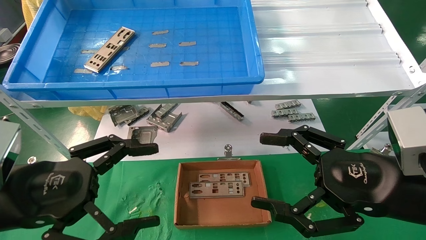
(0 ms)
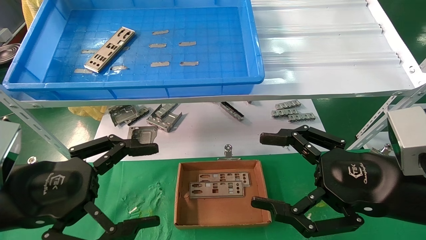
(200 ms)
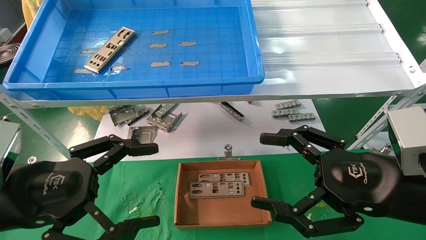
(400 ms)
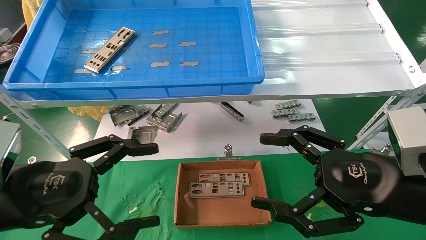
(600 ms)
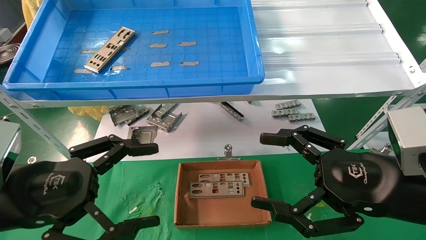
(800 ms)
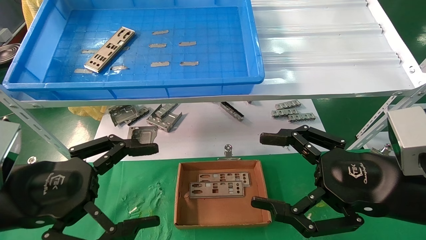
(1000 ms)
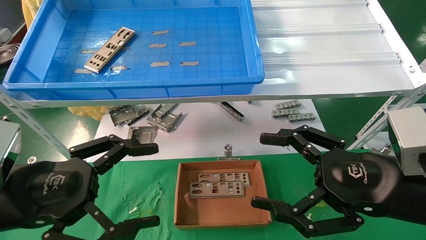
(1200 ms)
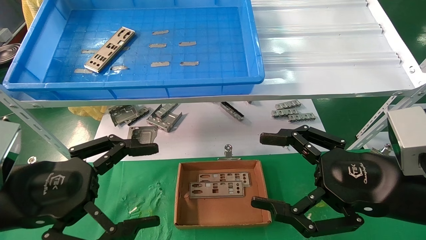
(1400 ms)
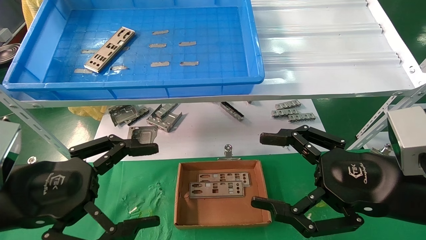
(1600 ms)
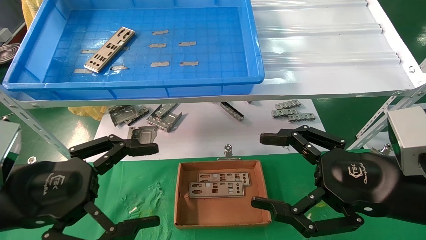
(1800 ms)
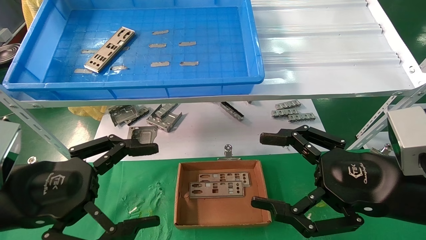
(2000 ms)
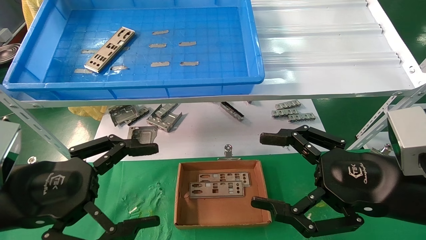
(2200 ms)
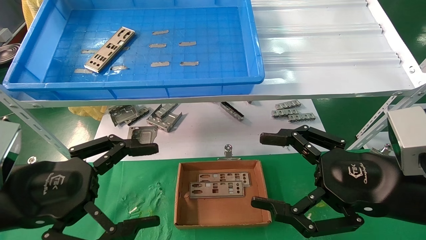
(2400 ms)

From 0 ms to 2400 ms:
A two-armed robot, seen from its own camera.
Task of the whole recording: pick up the parts on the tray and put them in the cardboard box.
From 0 ms to 2400 ms: Both grippers stay about where they are.

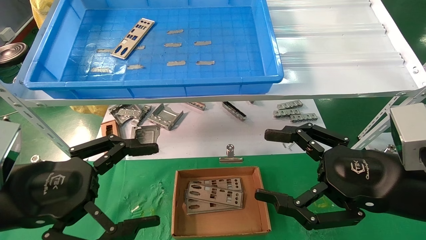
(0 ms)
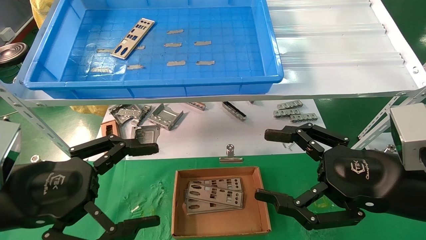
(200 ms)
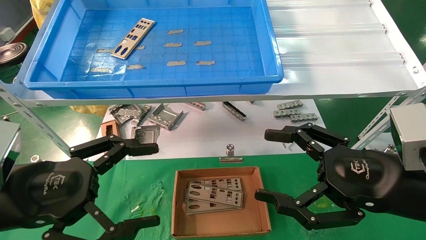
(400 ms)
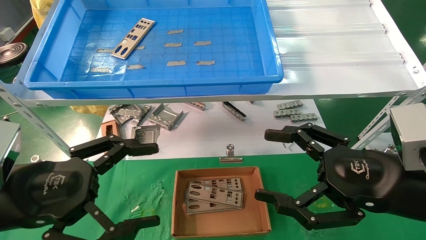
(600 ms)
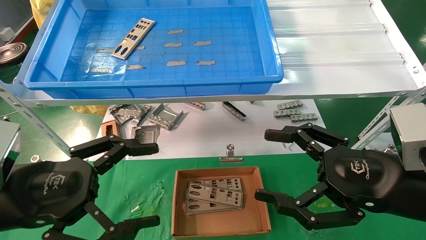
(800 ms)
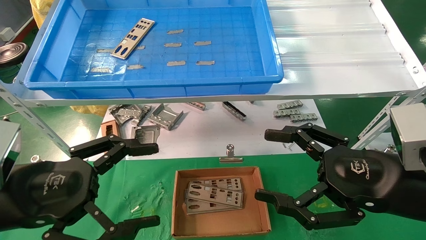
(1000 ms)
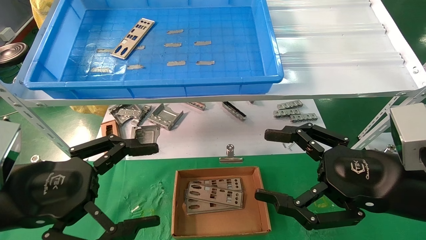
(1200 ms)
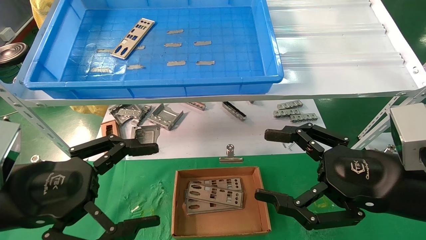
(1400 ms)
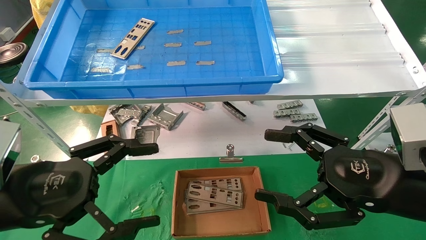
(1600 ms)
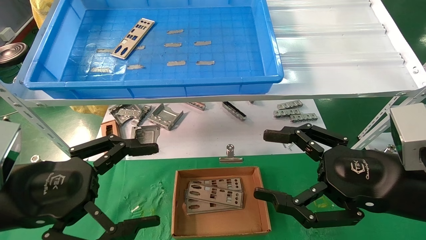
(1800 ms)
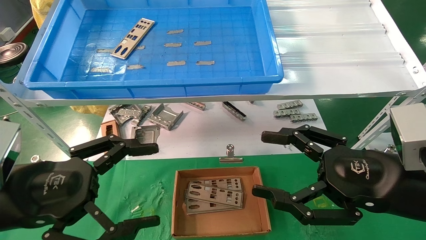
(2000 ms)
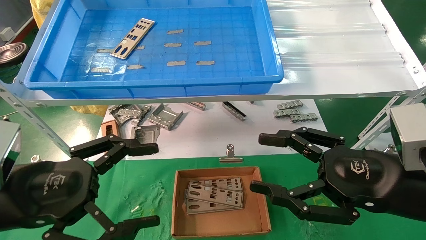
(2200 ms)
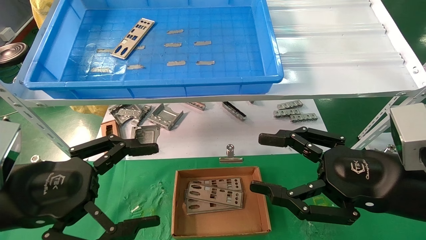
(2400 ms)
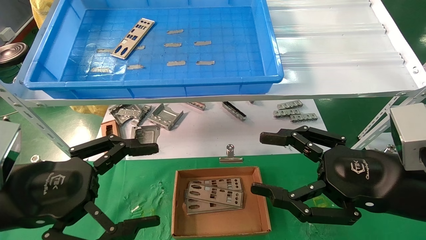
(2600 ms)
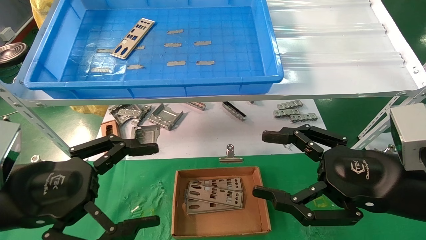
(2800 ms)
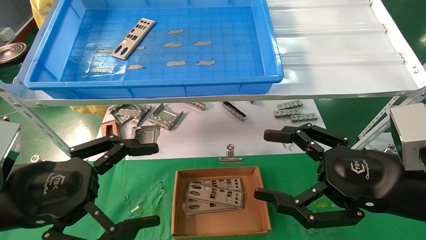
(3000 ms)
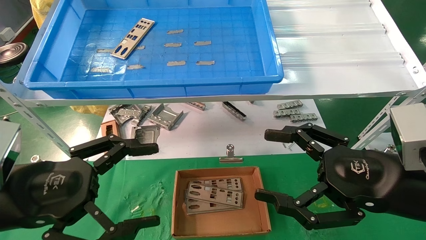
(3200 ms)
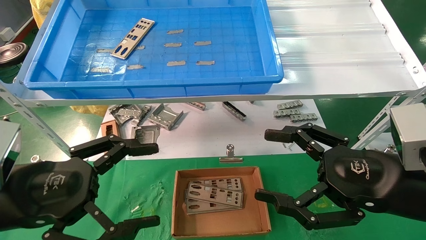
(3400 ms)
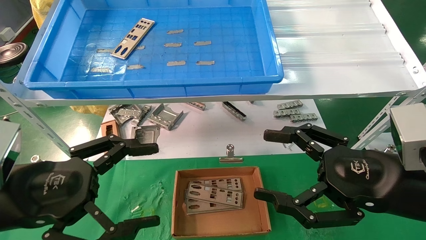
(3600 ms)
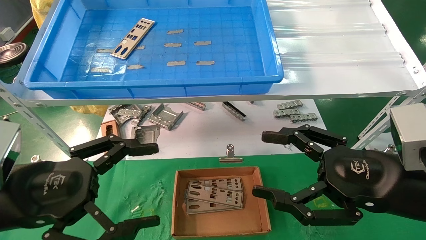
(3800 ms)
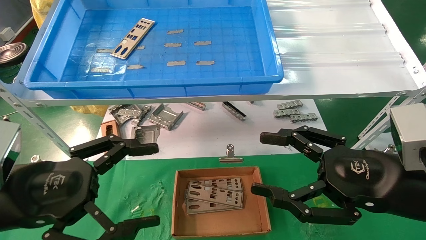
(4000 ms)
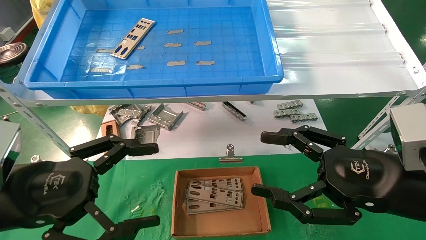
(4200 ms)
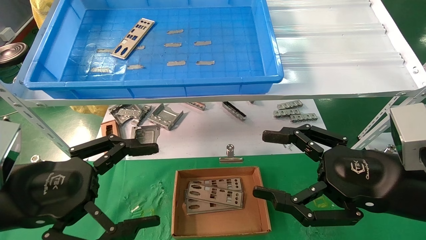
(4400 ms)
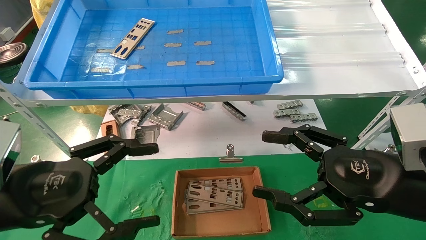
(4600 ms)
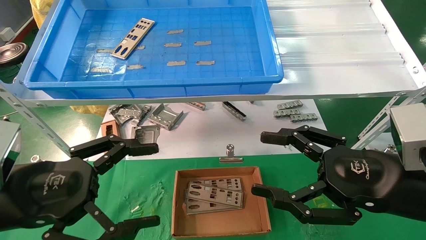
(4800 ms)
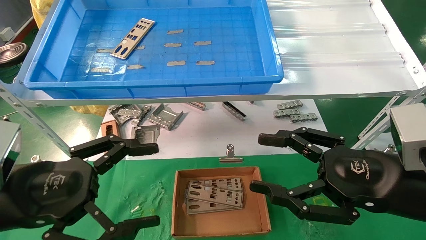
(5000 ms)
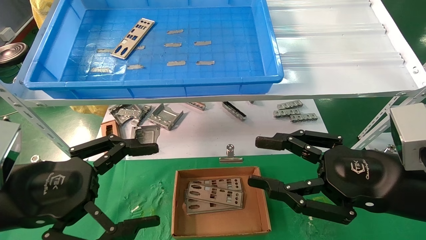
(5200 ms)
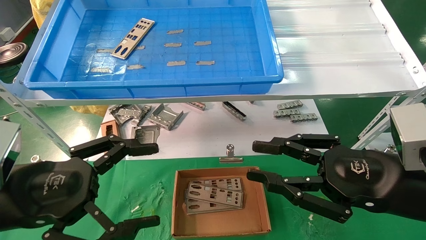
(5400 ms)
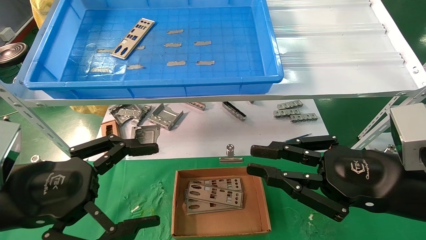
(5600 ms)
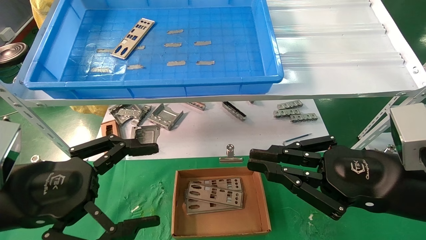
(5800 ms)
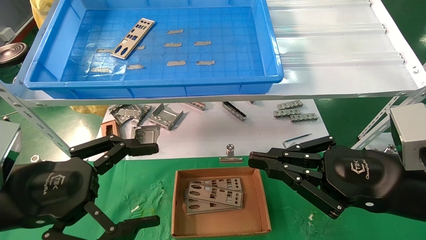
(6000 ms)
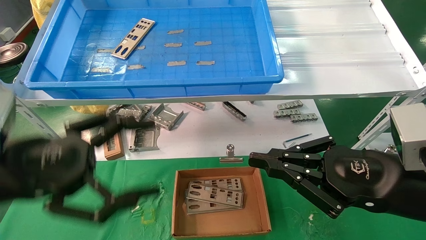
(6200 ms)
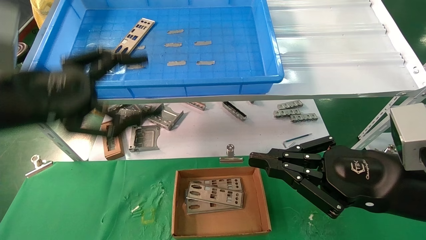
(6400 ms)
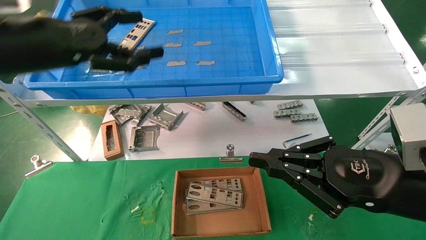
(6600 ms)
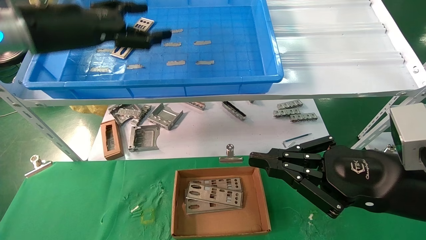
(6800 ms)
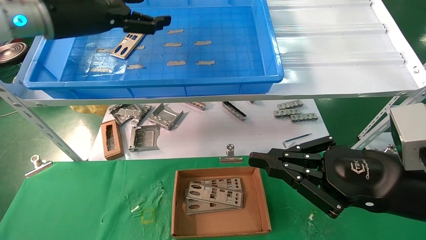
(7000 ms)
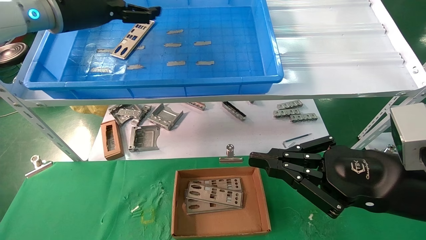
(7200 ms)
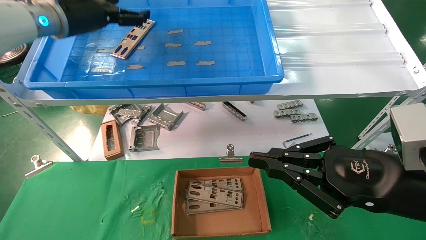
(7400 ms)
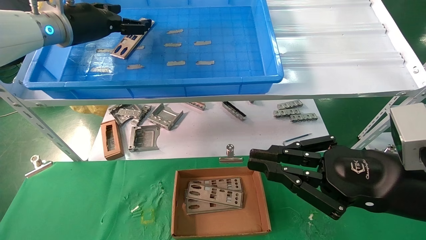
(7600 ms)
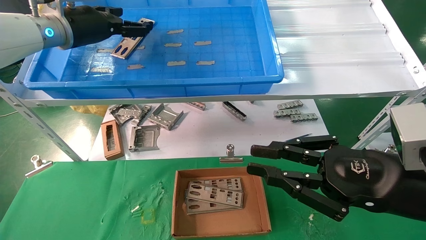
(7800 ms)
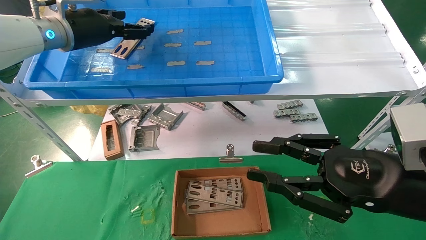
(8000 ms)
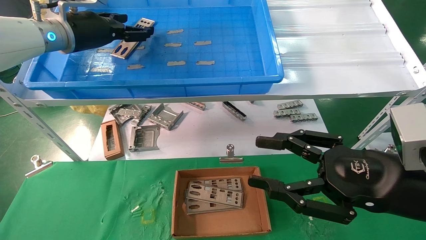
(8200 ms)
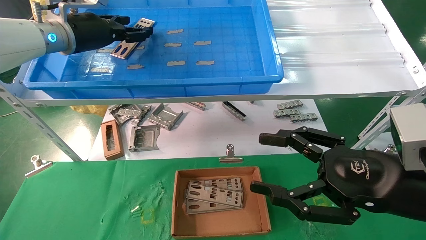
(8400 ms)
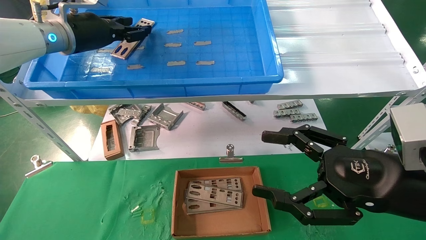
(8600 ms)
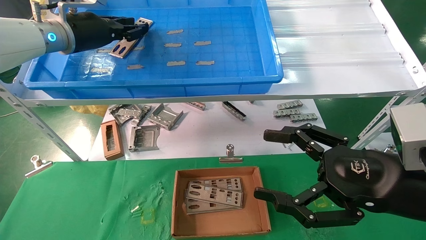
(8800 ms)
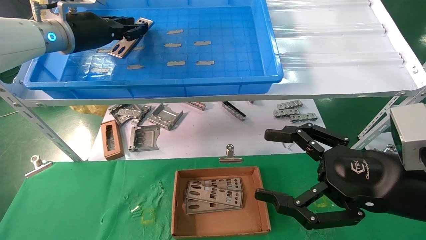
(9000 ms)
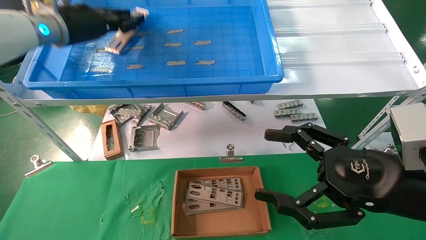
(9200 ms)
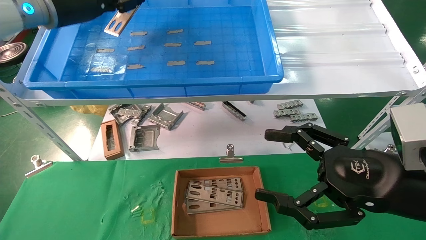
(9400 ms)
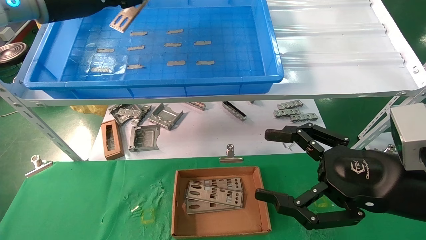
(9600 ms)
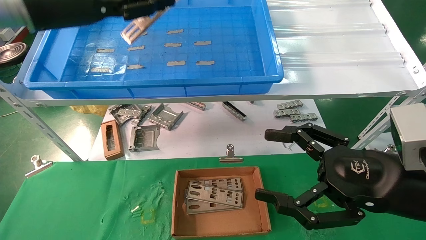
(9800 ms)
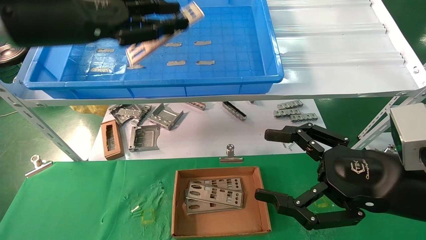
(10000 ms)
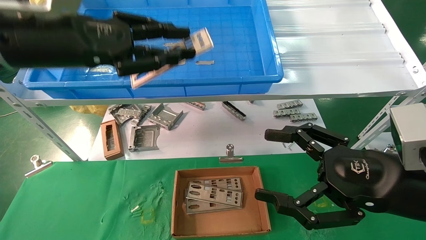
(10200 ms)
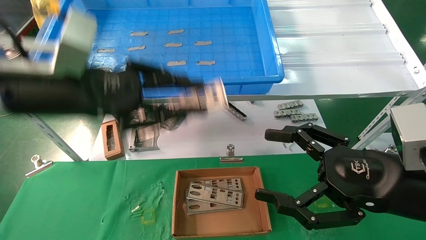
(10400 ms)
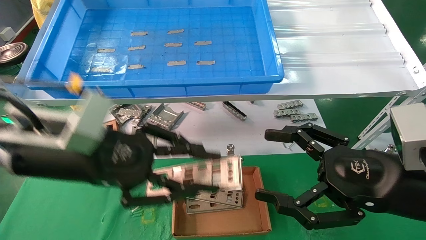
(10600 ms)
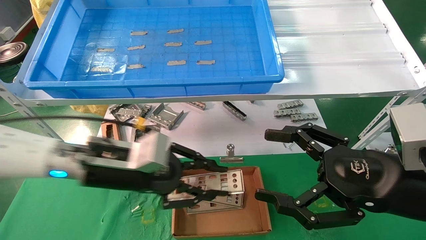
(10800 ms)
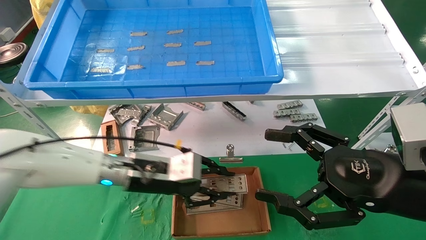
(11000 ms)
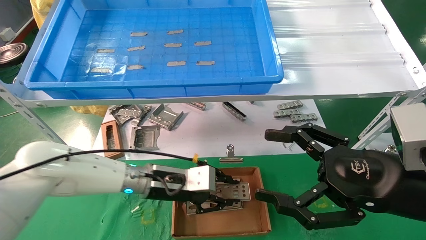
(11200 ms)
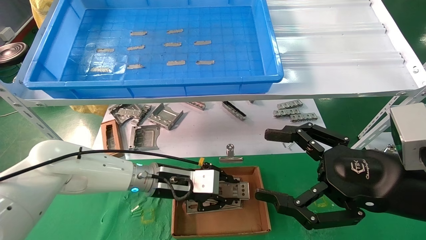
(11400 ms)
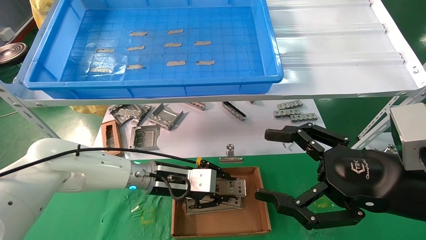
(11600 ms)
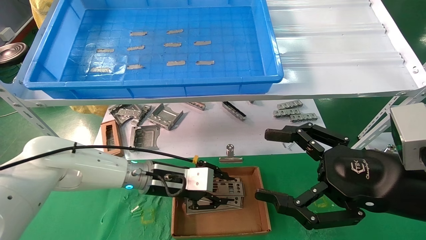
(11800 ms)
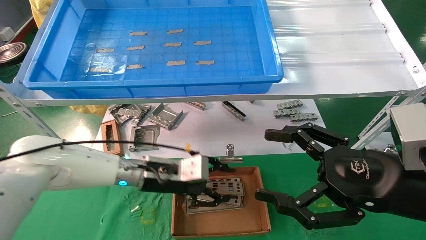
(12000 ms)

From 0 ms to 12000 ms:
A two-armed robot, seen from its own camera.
Task of the whole recording: pick up the parts on the tray and put them in the cardboard box.
Step, from 6600 ms to 8800 ms: Pick up the IO bracket from the container box.
Step, from 9000 ms to 11800 ms: Place the IO bracket into the ingredient slot.
From 0 ms to 4400 ms: The two grippers keep their place.
From 4400 ms to 6000 ms: The right gripper closes its fingers.
From 6000 ms to 7600 ms: The left gripper heads forward and upward, covering some 30 cm.
From 7600 ms to 9000 ms: The left gripper closes; the right gripper opens.
From 9000 ms to 10400 ms: The left gripper heads backward and downward, covering some 20 cm.
From 10400 ms to 12000 ms: The left gripper heads downward, forward and to the right, covering approximately 25 cm.

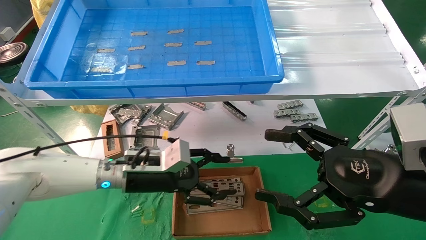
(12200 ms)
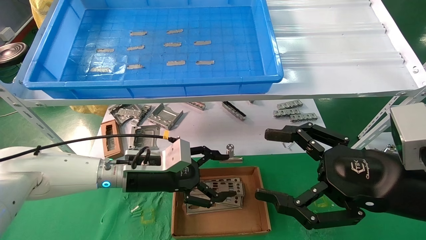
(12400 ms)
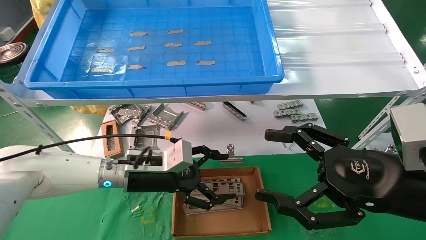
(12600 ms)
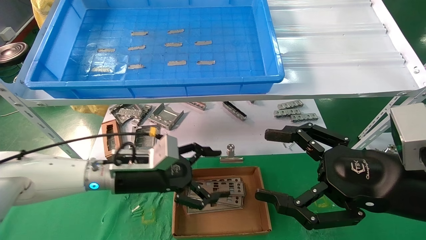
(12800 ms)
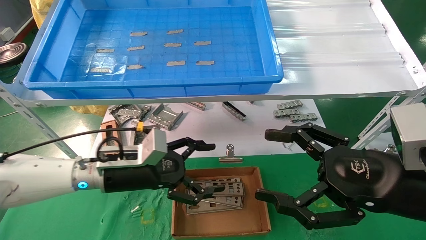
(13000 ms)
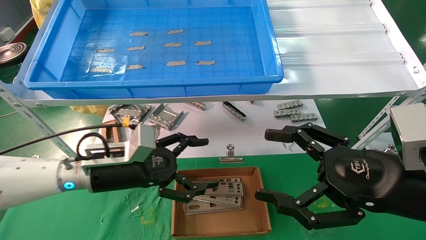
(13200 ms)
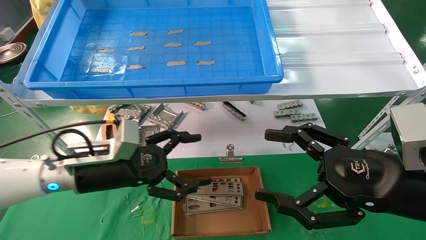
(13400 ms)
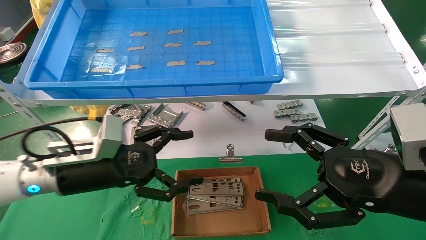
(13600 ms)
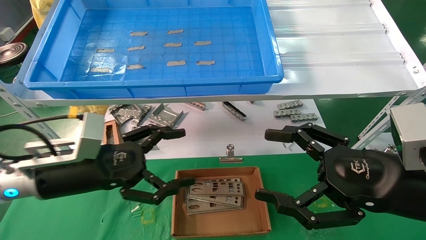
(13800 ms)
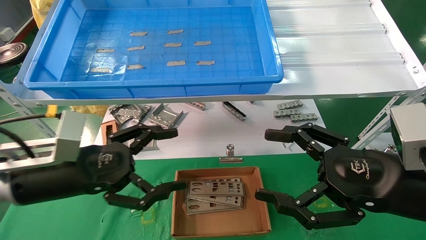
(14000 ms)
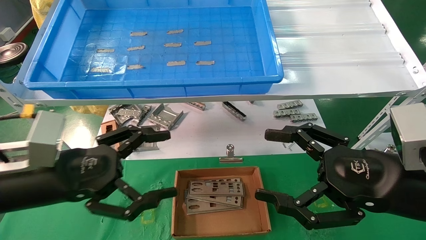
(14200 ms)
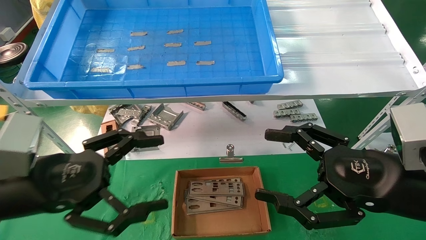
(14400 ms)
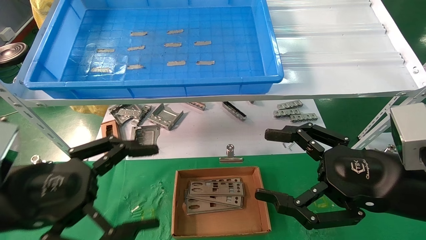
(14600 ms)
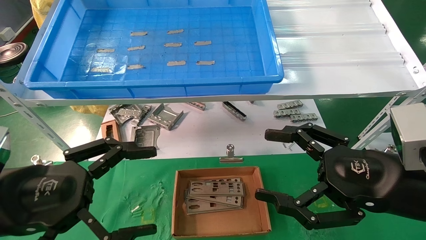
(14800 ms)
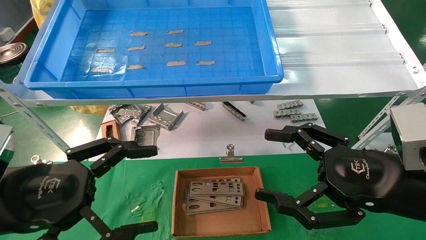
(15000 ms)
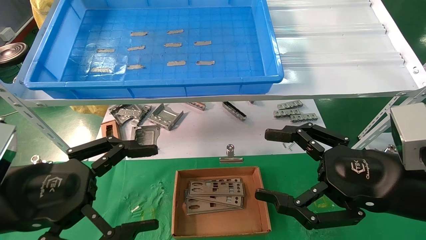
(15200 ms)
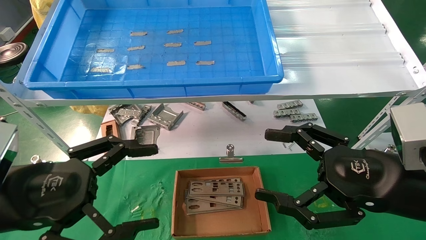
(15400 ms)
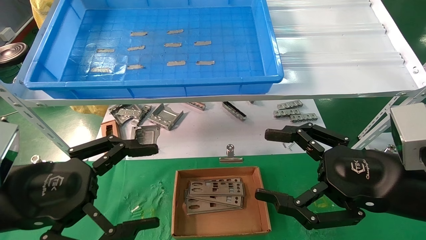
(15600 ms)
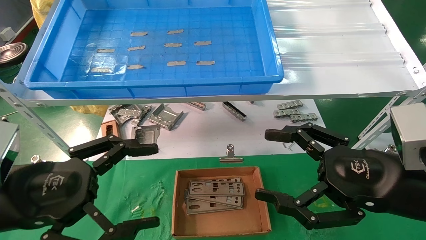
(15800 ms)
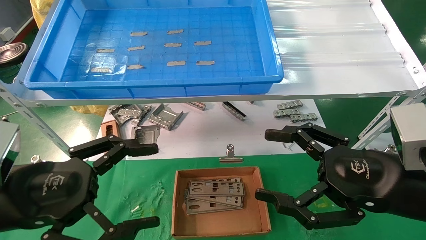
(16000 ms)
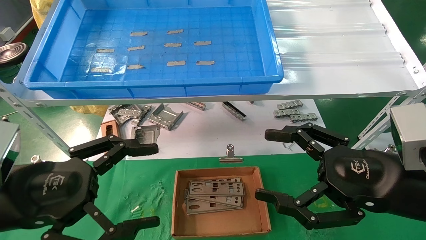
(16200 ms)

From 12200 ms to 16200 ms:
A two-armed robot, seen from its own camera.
Task of the whole recording: pick up the parts on the tray and put them in the cardboard box.
From 12200 ms to 13600 ms: The left gripper travels to the left and backward by approximately 10 cm, and opens its fingers.
From 13600 ms to 14800 ms: The left gripper shifts about 10 cm backward.
From 14800 ms to 16200 ms: The two grippers keep their place.
